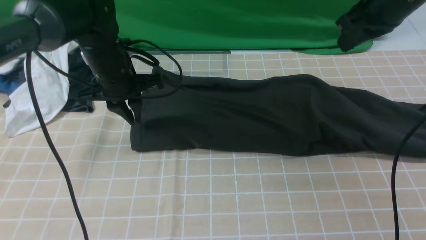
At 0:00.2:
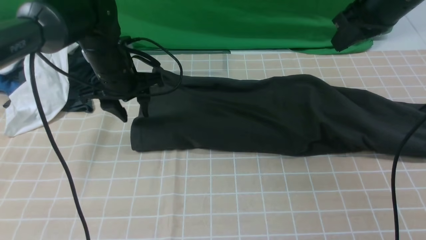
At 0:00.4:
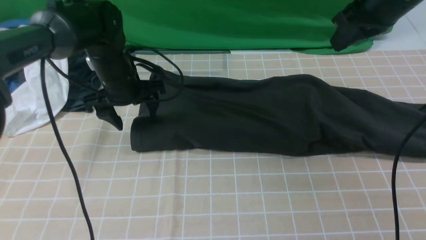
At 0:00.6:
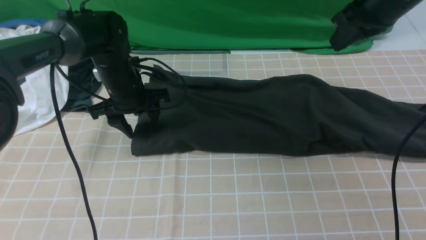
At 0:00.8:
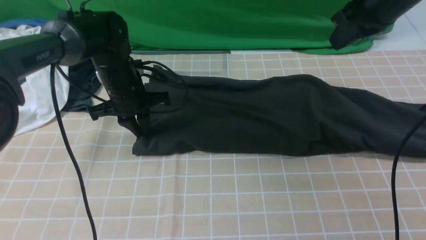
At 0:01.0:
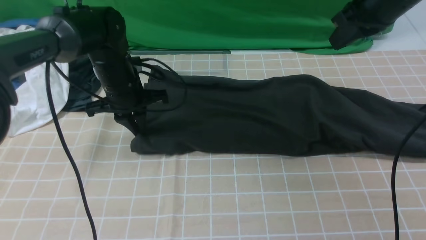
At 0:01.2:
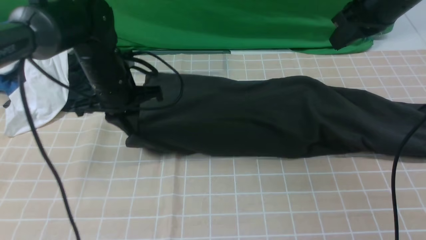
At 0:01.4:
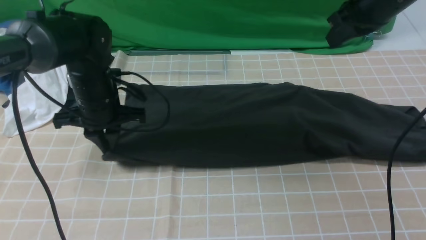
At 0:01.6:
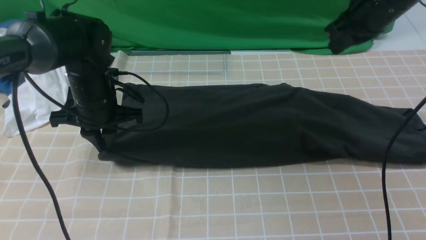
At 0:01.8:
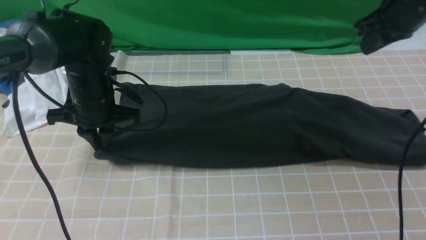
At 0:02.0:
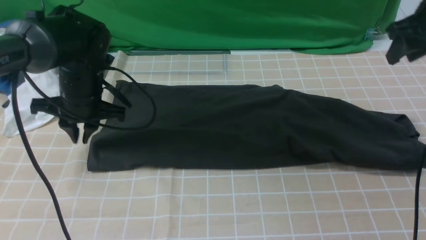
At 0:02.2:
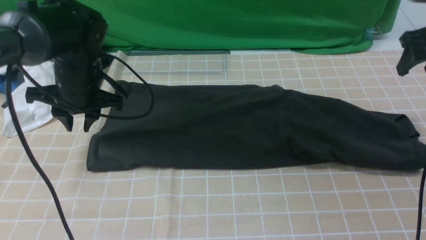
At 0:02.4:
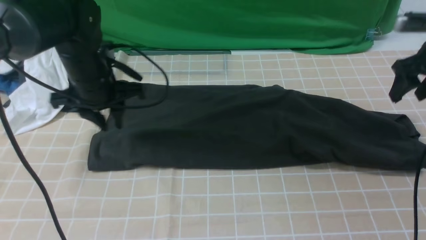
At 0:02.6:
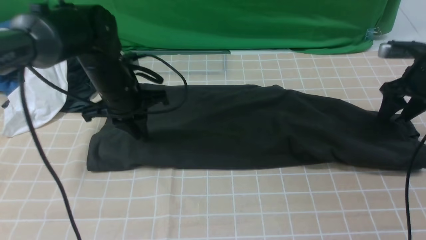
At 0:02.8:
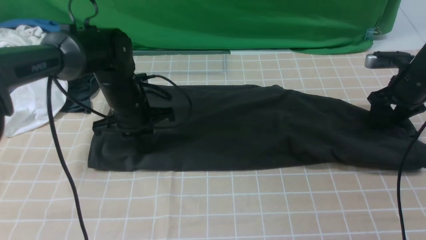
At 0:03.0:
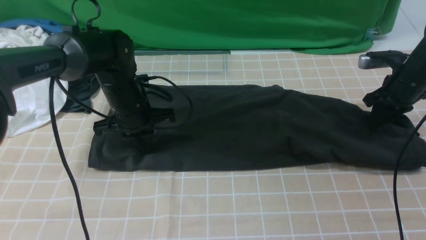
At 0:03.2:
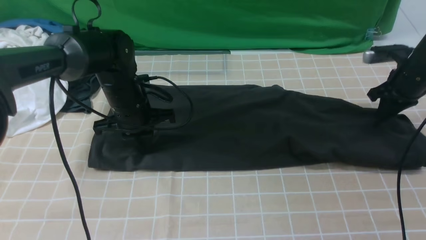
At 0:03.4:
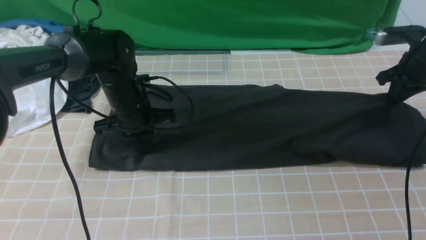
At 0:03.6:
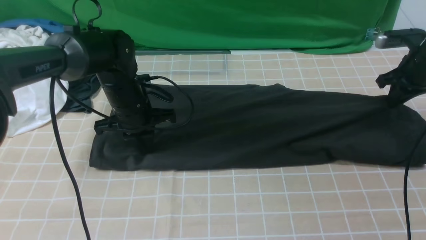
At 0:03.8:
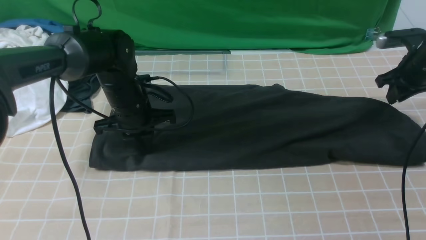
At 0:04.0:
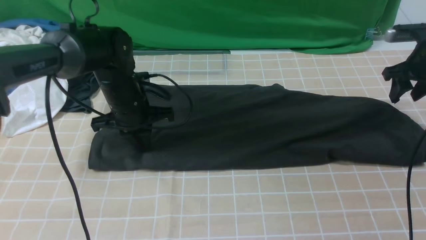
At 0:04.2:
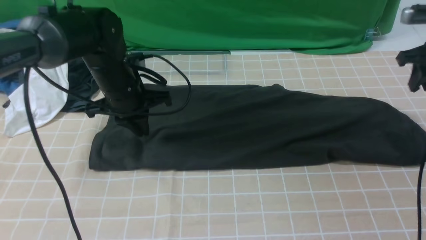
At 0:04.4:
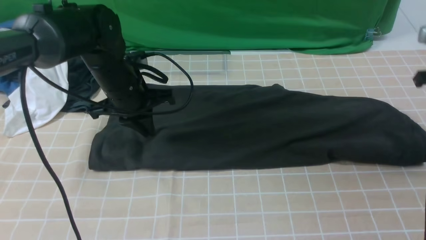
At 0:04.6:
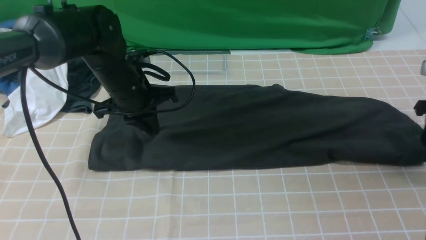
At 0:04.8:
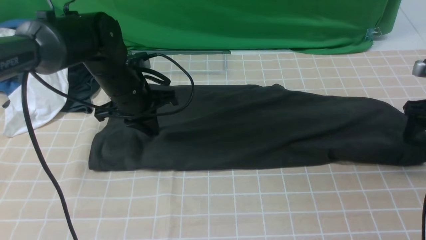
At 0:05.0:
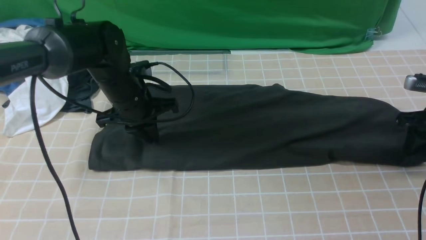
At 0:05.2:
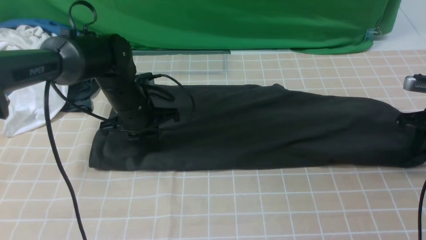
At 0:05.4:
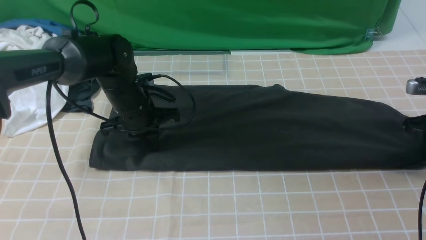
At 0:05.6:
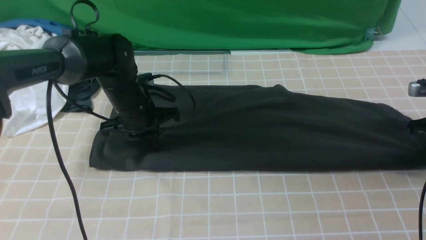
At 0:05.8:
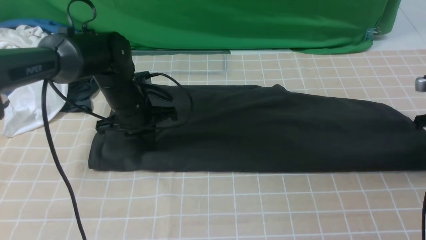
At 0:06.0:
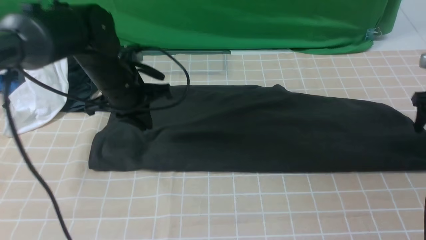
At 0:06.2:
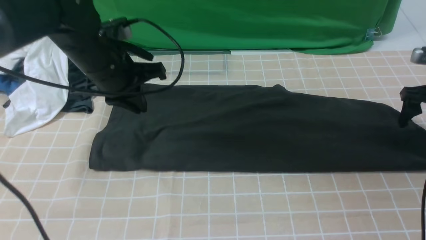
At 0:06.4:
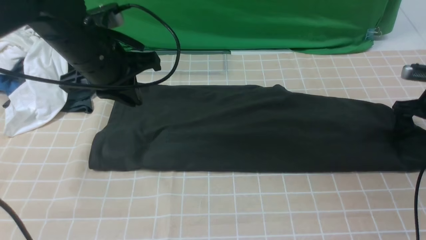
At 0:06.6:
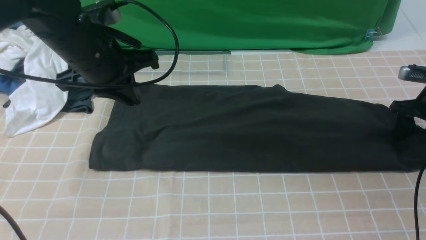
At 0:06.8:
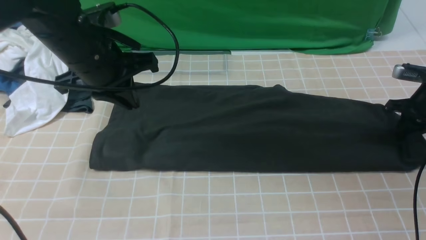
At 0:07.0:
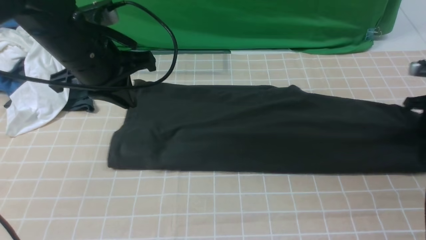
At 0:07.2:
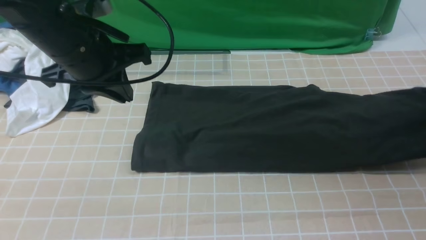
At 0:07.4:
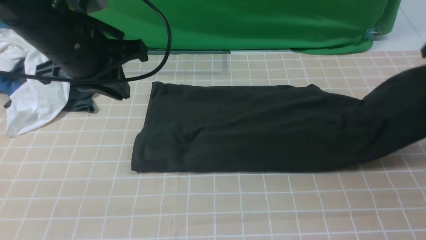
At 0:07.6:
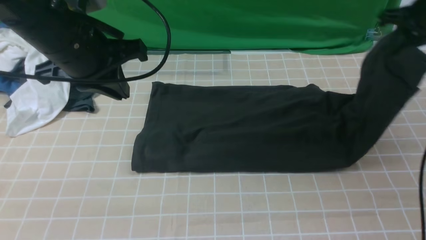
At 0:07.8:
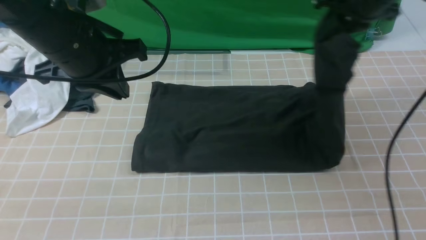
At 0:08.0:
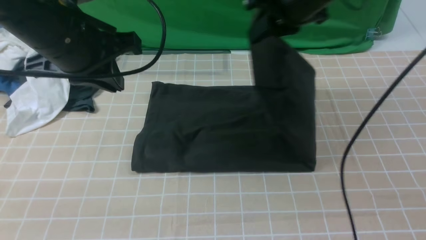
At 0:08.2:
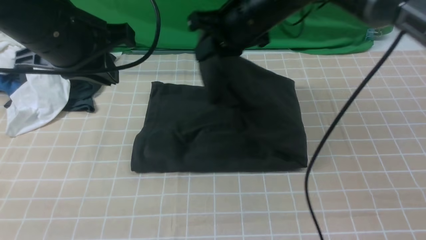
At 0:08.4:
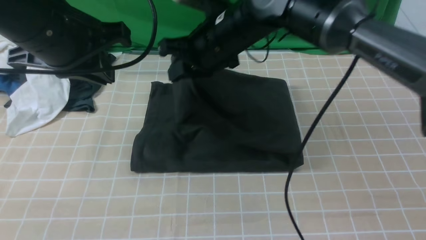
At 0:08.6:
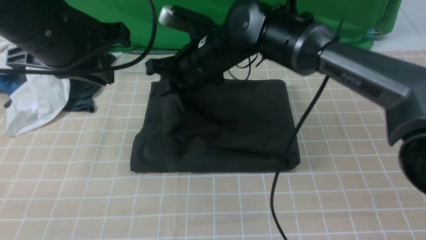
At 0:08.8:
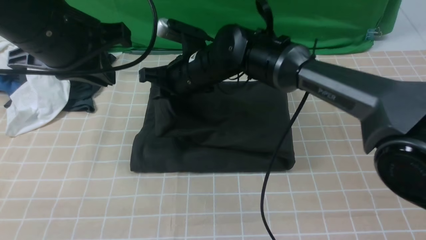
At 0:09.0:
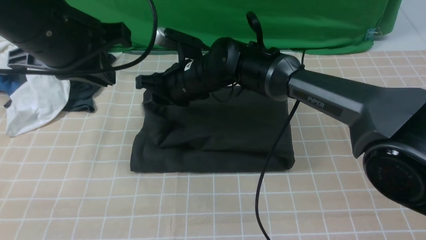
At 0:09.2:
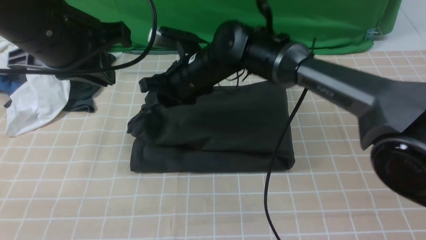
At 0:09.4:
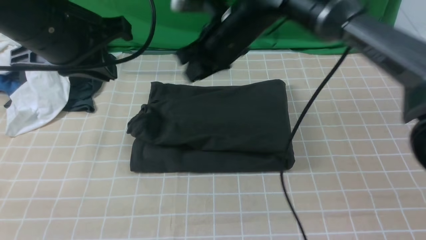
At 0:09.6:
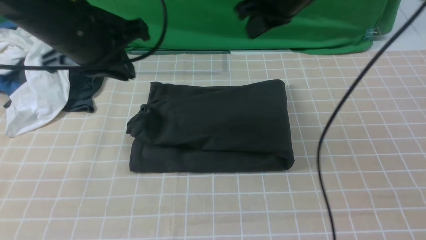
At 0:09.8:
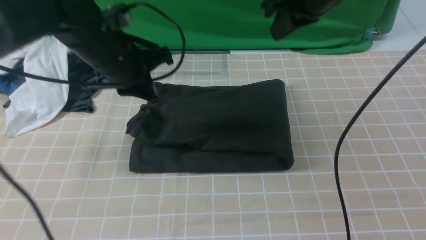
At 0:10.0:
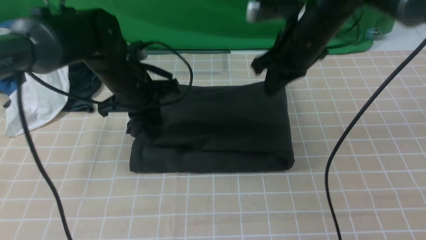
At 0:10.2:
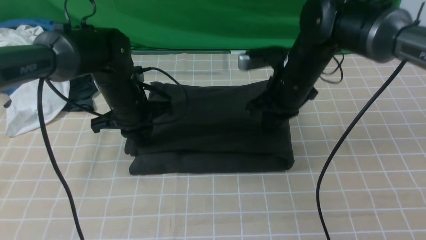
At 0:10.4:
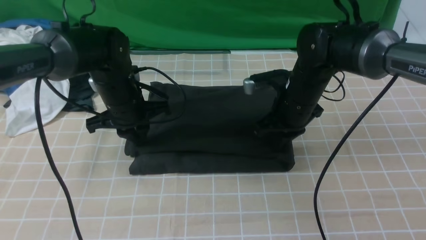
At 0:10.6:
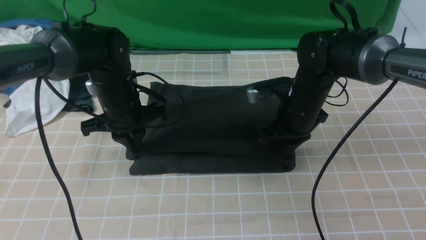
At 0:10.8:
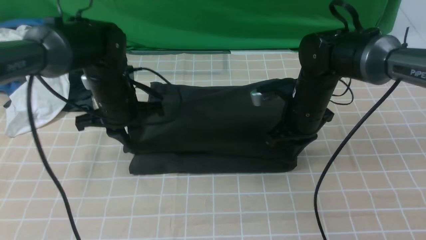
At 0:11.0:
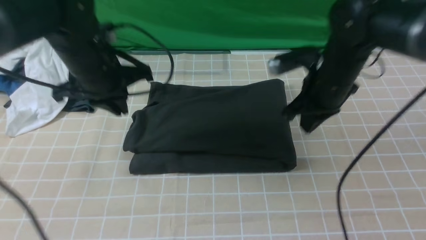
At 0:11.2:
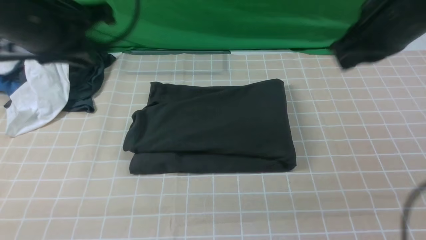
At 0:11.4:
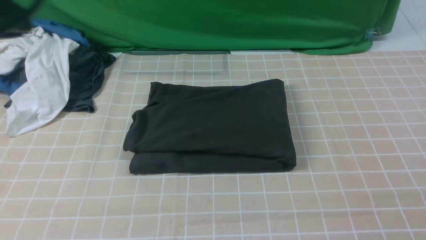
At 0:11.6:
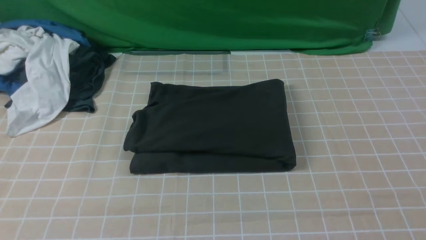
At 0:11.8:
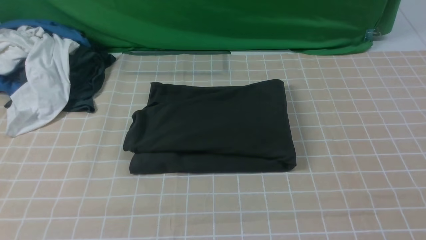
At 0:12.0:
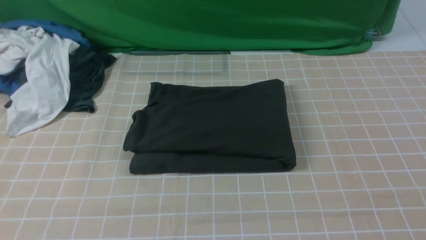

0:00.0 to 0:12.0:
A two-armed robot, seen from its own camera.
Step, 0:00.0 to 0:06.6: use the right arm to clamp the right edge of the fabric.
Step, 0:07.0 to 0:09.0: use the right arm to drag the right edge of the fabric to the left and folds it over the left edge.
0:00.0 to 0:01.6: The left gripper ends up about 5 cm from where it was, and opens, then closes once more.
0:01.6 to 0:03.0: The left gripper ends up roughly 5 cm from where it was, and opens, then closes once more; the right gripper moves downward and to the right, about 20 cm, and opens, then closes once more.
0:03.0 to 0:04.4: The left gripper moves about 5 cm; the right gripper shifts about 10 cm upward and backward.
0:04.4 to 0:06.0: The left gripper reaches approximately 5 cm downward, then returns, while the right gripper changes place by some 5 cm, and opens its fingers.
0:06.0 to 0:07.6: The left gripper heads upward and backward, covering about 15 cm, while the right gripper travels upward and to the left by approximately 15 cm, and closes up.
0:07.6 to 0:09.0: The right gripper is displaced to the left by about 35 cm.
0:09.0 to 0:10.4: The left gripper travels downward and forward by roughly 20 cm, while the right gripper heads to the right, covering roughly 15 cm, and closes.
0:10.4 to 0:12.0: The right gripper is displaced backward, upward and to the right by roughly 50 cm, while the left gripper goes roughly 40 cm backward and upward.

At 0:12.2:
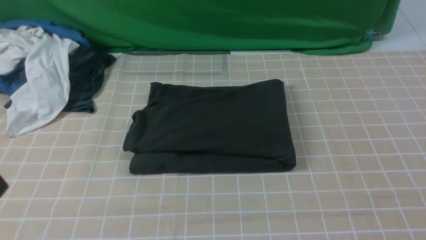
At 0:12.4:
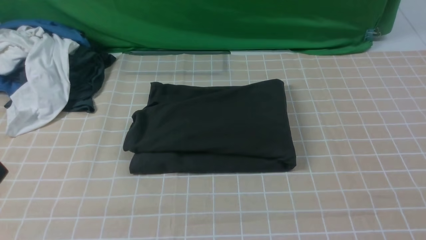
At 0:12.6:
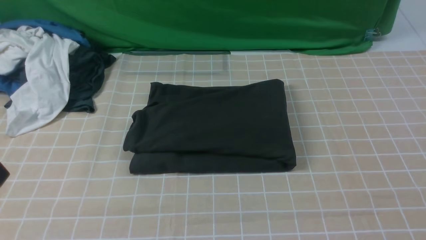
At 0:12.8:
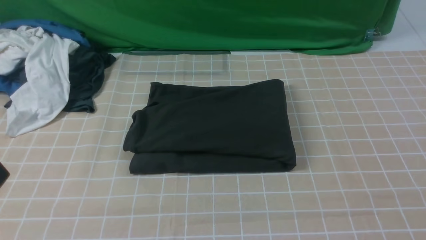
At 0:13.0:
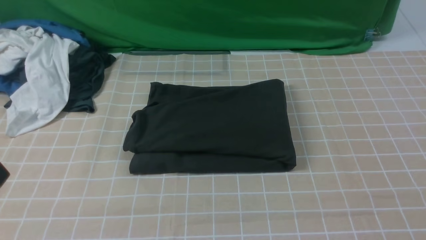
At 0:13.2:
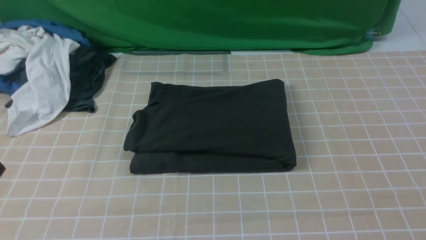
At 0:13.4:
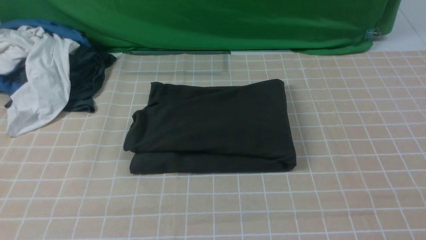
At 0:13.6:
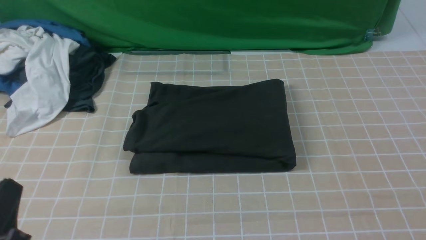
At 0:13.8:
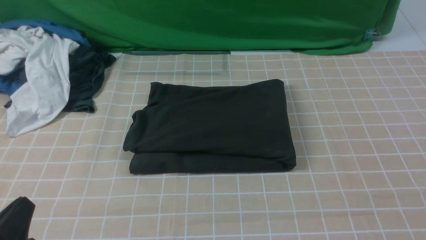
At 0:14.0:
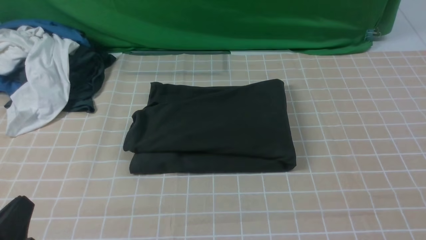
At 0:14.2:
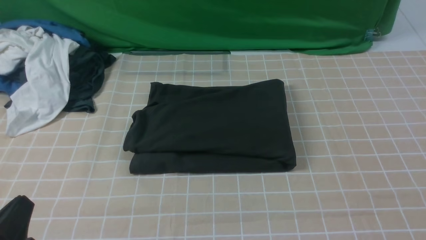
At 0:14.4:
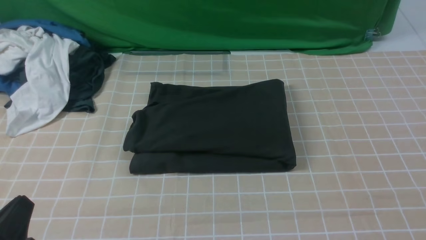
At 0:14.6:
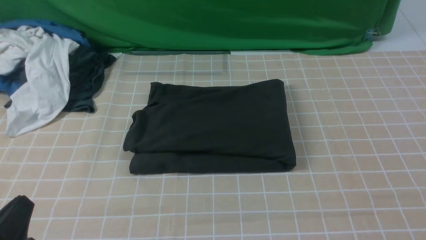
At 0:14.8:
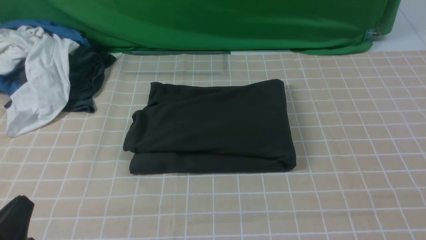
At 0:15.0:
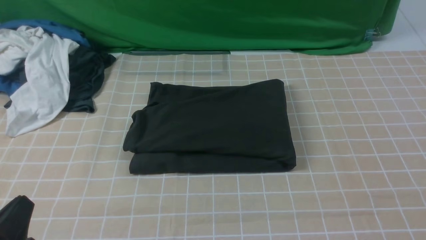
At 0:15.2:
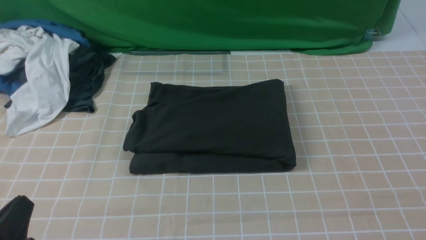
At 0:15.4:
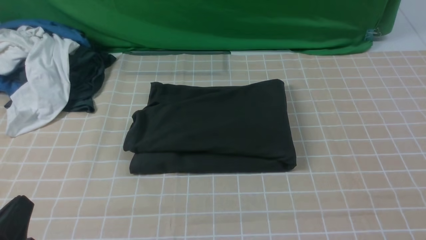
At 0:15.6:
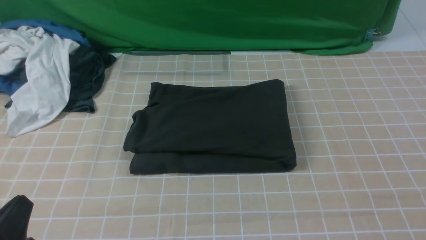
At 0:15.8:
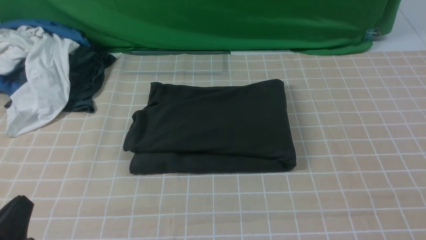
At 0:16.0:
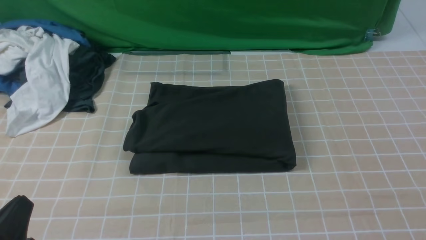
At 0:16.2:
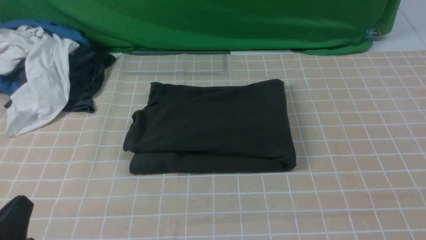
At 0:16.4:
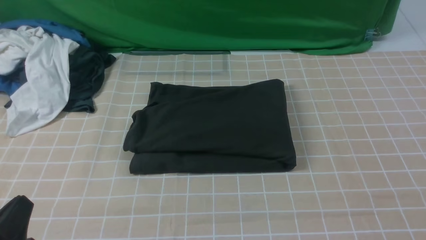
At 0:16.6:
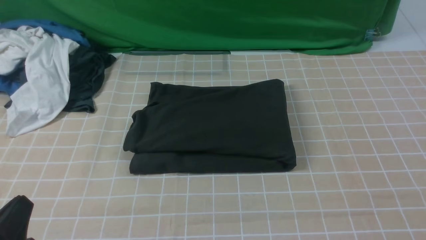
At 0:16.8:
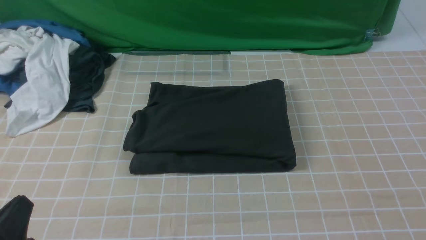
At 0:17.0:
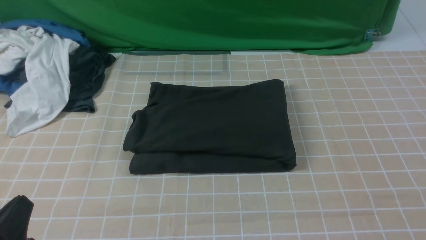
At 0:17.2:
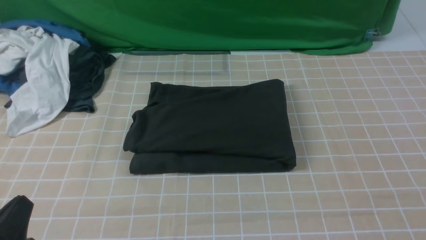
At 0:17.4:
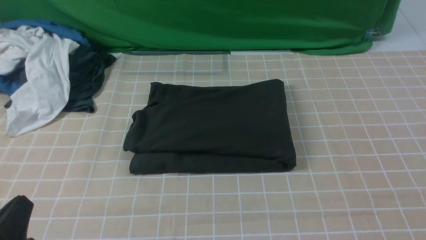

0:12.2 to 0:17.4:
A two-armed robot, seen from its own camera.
0:12.2 to 0:14.0: The left gripper is displaced downward by some 15 cm.
0:15.6 to 0:17.4: Both grippers stay about where they are.
